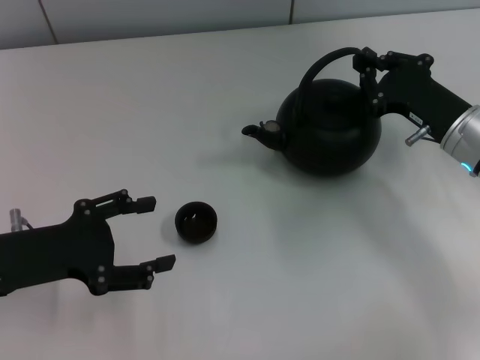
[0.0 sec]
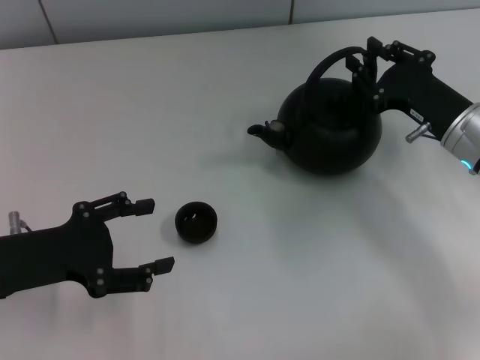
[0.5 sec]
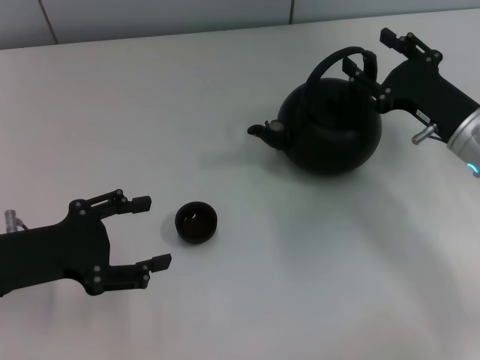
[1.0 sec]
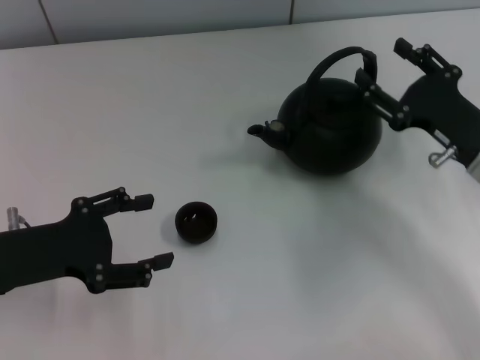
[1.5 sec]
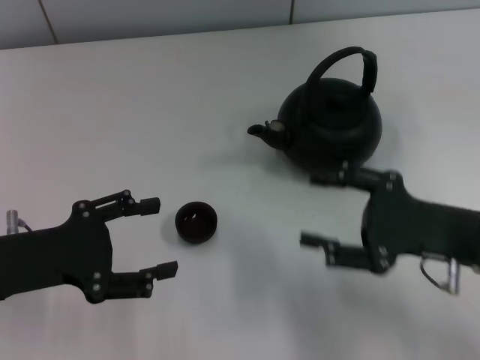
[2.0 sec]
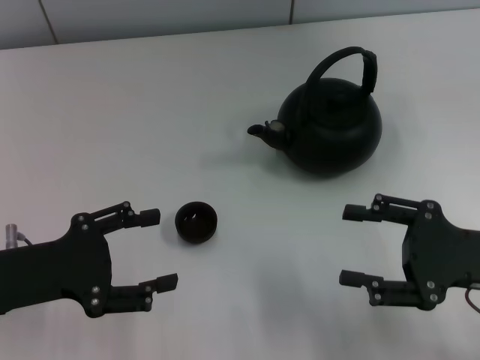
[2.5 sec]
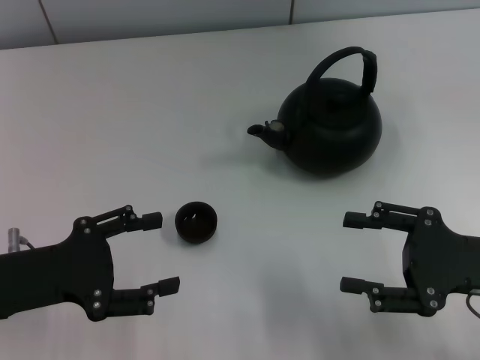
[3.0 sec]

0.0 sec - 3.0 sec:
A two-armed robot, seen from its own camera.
Task of the whole recording: Grasp the handle of the teapot with one hand and pour tea into the teacup.
0.0 sec - 1.5 sec: The right gripper opens its fingers.
1.5 sec - 3.0 sec: The right gripper travels backward by approximately 10 cm.
